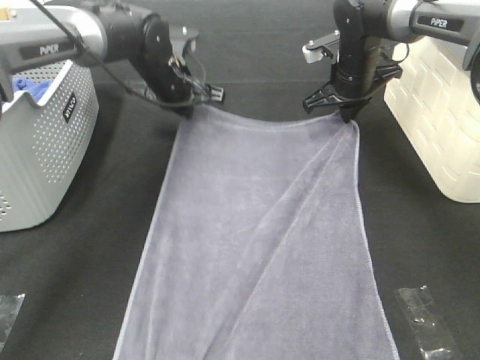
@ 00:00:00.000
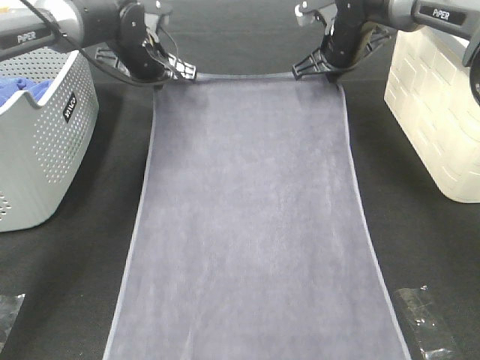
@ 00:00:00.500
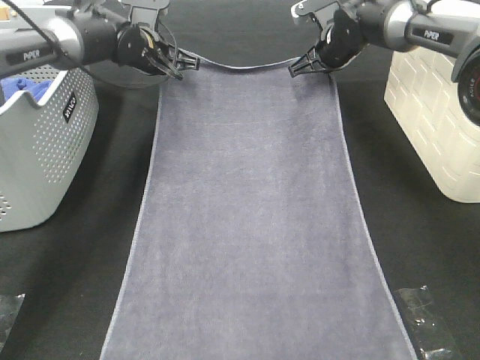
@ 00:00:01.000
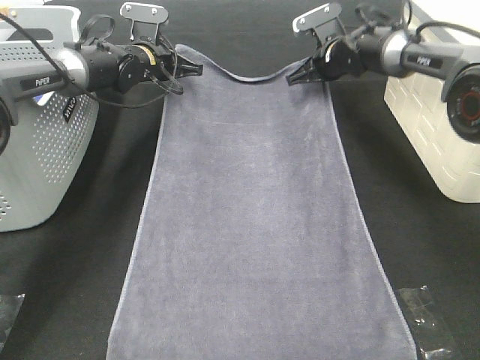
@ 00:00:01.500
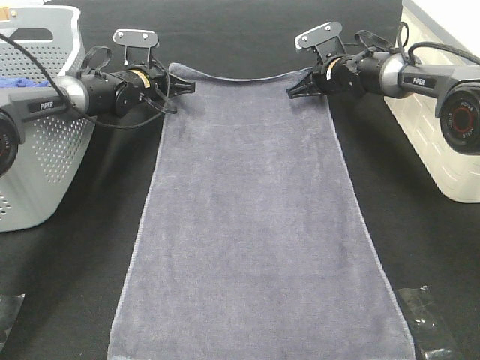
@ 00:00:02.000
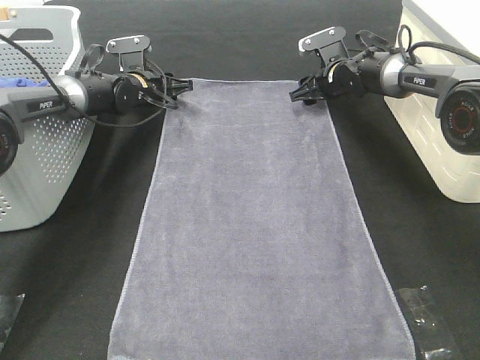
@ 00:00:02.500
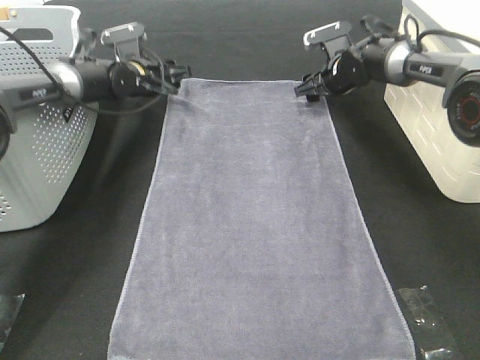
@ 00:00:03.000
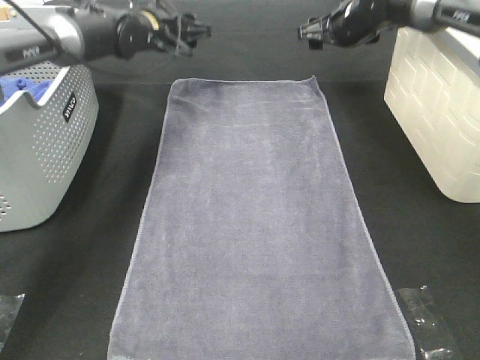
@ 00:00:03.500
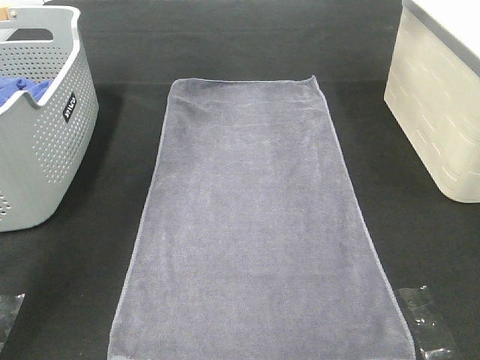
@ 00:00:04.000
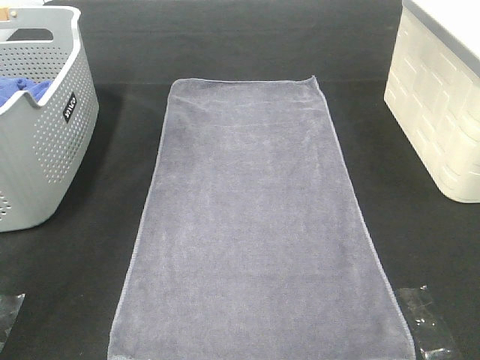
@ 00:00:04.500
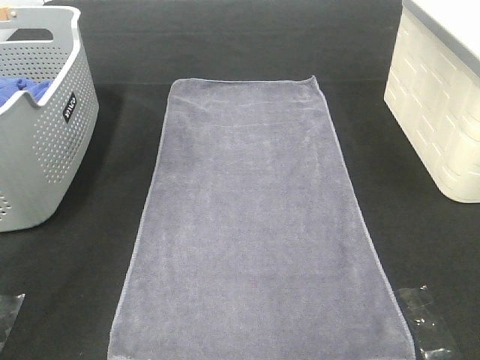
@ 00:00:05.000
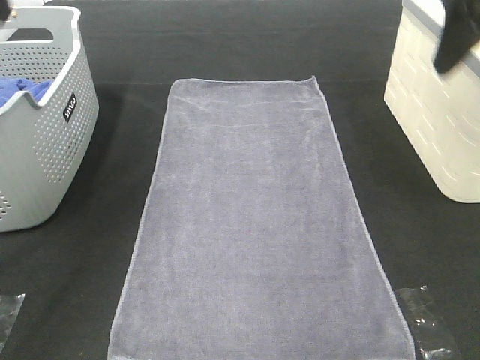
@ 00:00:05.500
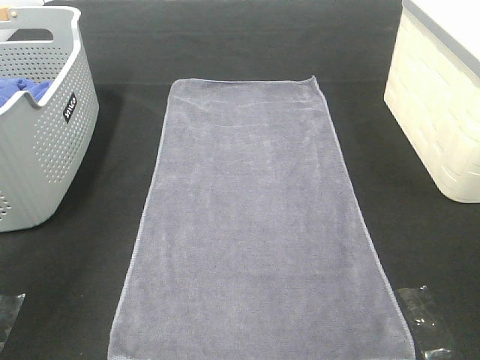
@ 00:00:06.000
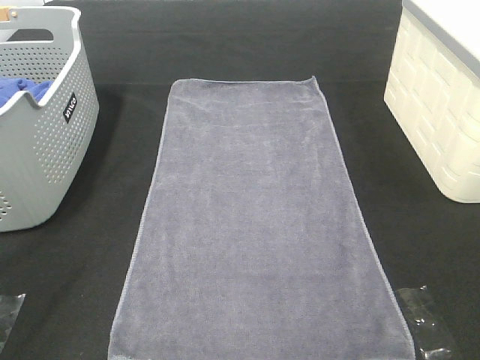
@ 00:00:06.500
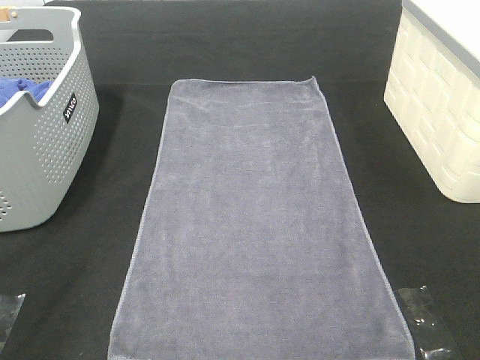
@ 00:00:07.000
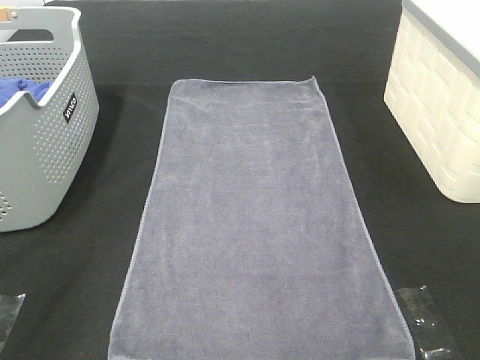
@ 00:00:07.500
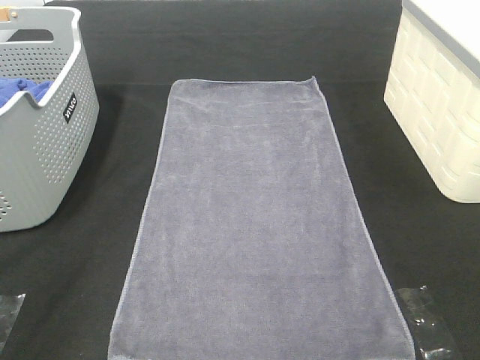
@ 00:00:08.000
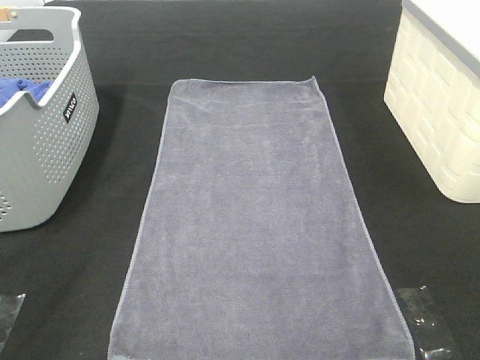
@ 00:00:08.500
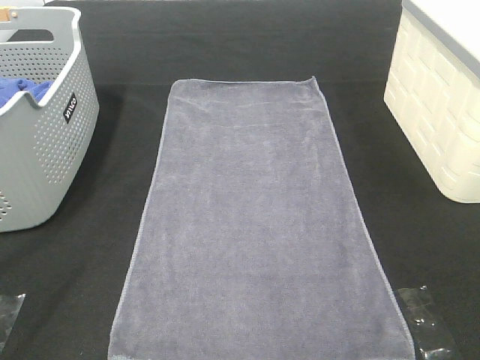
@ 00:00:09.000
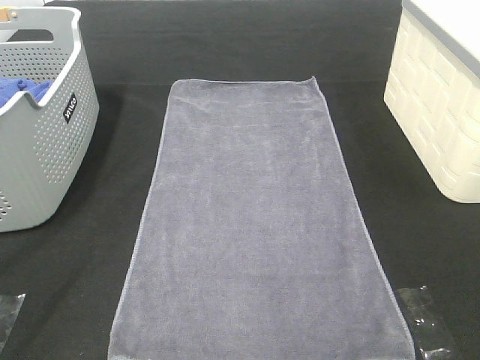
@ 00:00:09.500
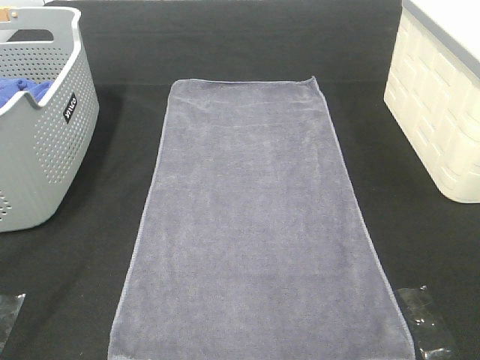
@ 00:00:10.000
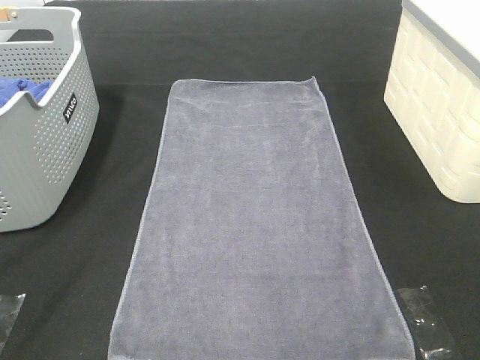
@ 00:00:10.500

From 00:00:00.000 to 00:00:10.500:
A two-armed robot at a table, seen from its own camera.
Task of the whole recording: Remove the towel and place it.
From 00:00:00.000 to 00:00:02.000: The left gripper travels downward, to the left and forward by roughly 10 cm; the right gripper moves forward and downward, approximately 10 cm.
From 00:00:02.000 to 00:00:04.000: Both grippers move upward, approximately 25 cm. The left gripper opens its fingers. The right gripper opens its fingers.
From 00:00:04.000 to 00:00:06.500: Both grippers travel together backward, roughly 40 cm.
